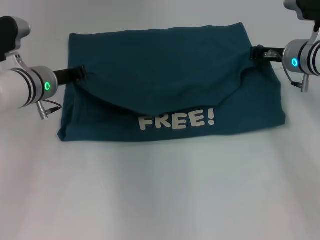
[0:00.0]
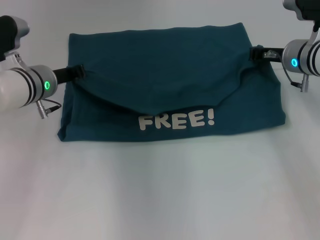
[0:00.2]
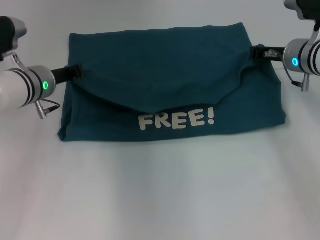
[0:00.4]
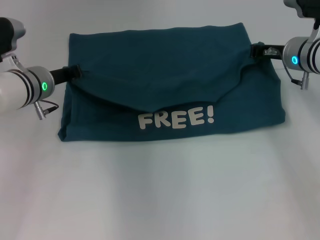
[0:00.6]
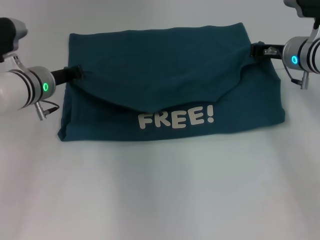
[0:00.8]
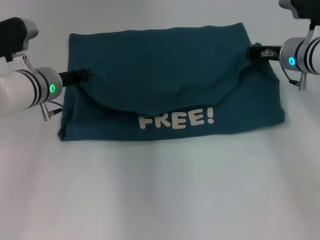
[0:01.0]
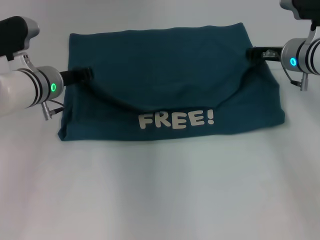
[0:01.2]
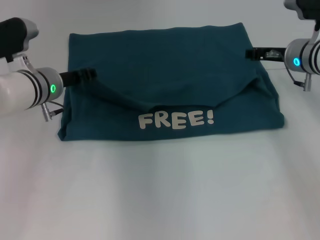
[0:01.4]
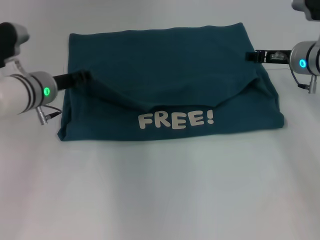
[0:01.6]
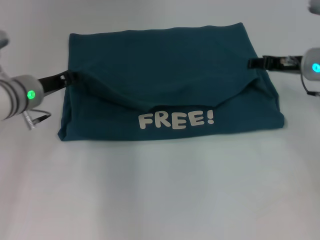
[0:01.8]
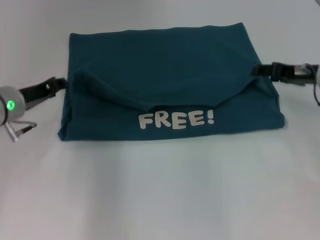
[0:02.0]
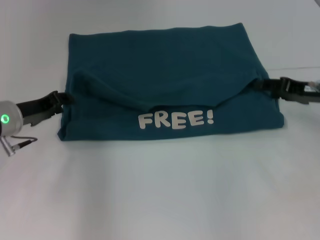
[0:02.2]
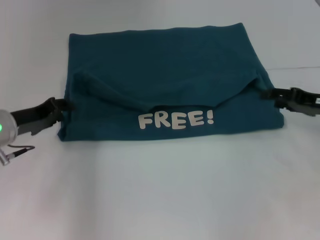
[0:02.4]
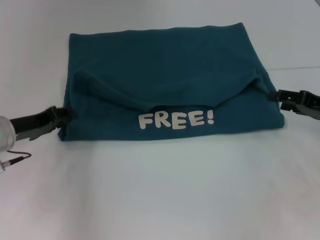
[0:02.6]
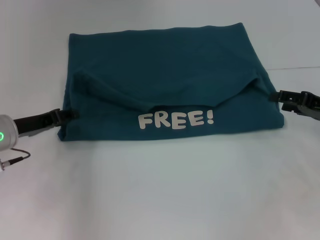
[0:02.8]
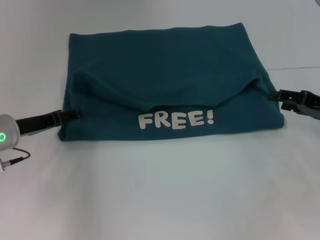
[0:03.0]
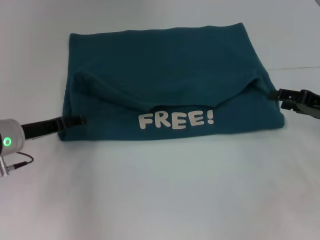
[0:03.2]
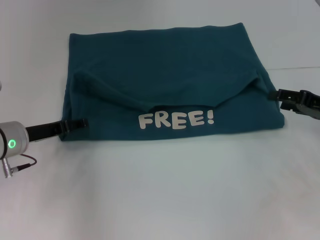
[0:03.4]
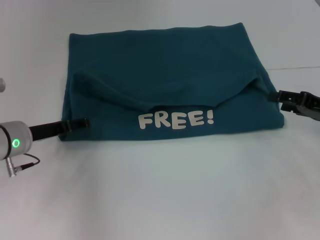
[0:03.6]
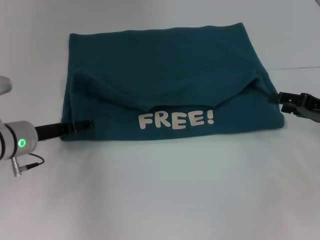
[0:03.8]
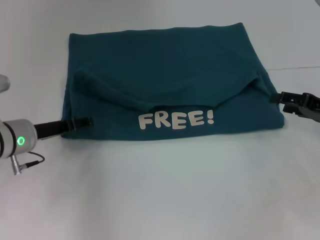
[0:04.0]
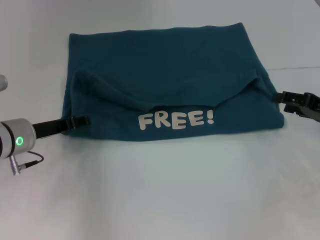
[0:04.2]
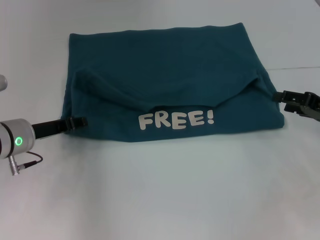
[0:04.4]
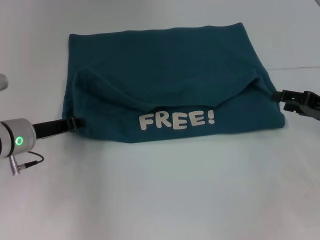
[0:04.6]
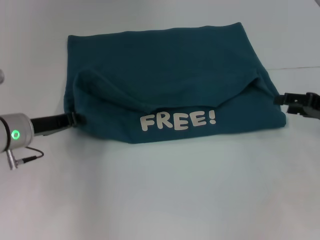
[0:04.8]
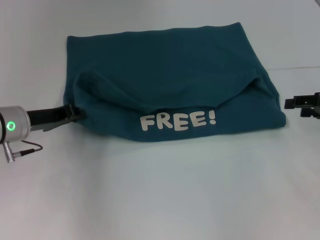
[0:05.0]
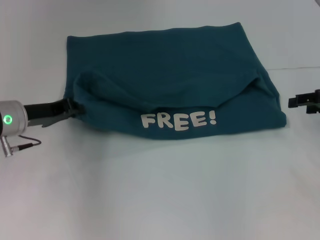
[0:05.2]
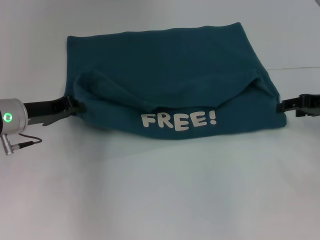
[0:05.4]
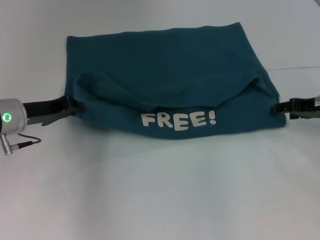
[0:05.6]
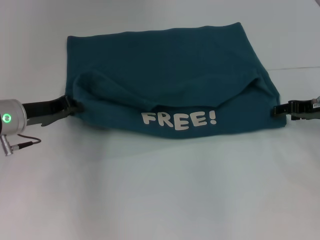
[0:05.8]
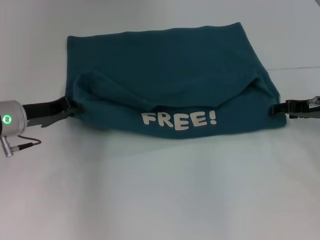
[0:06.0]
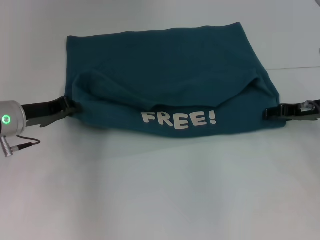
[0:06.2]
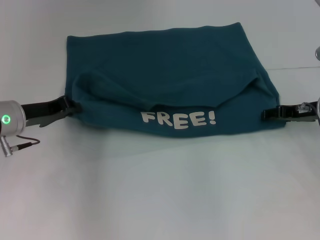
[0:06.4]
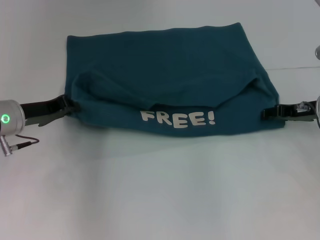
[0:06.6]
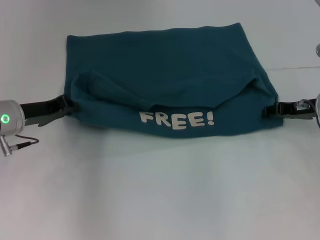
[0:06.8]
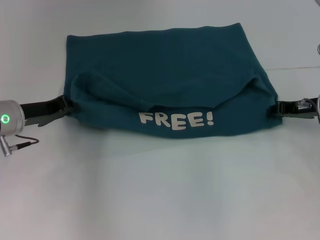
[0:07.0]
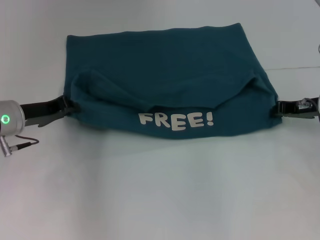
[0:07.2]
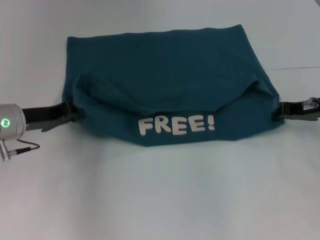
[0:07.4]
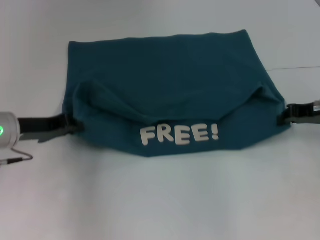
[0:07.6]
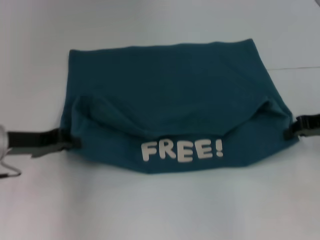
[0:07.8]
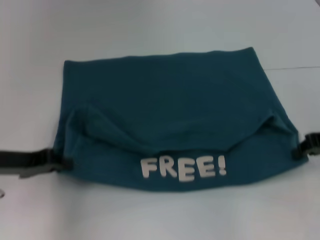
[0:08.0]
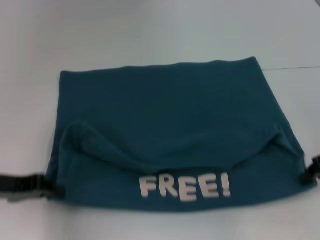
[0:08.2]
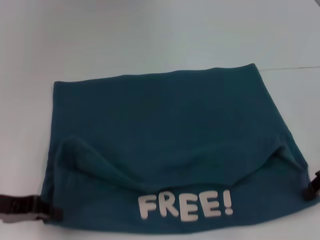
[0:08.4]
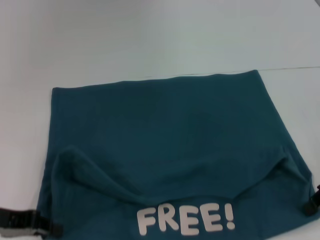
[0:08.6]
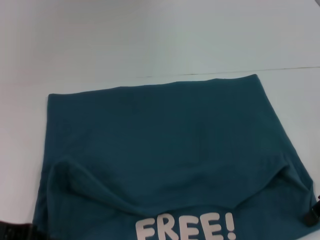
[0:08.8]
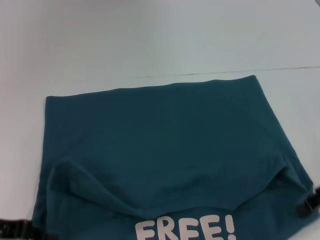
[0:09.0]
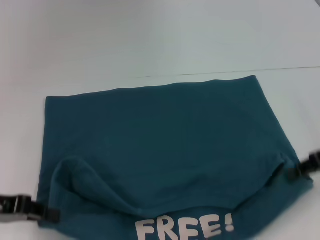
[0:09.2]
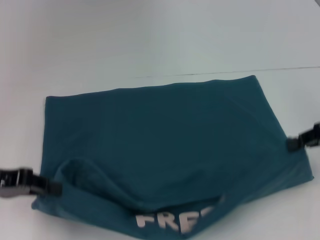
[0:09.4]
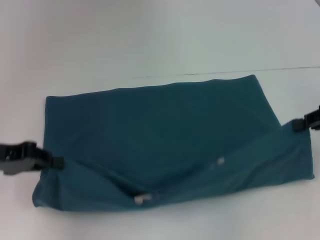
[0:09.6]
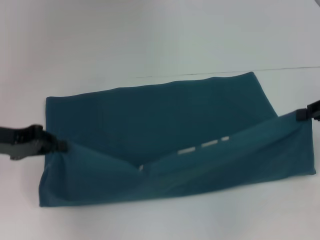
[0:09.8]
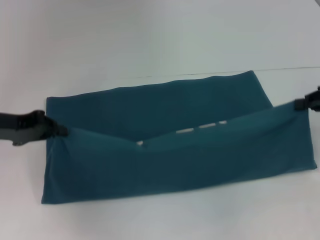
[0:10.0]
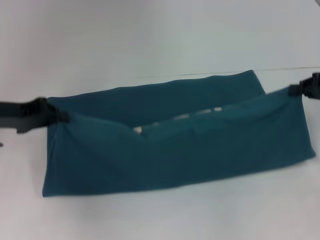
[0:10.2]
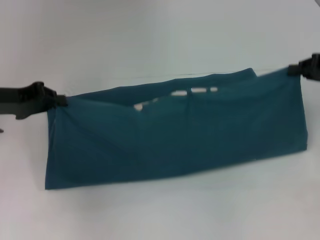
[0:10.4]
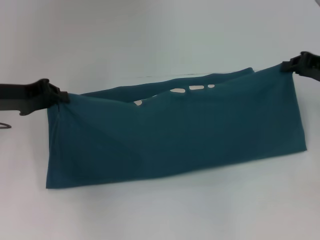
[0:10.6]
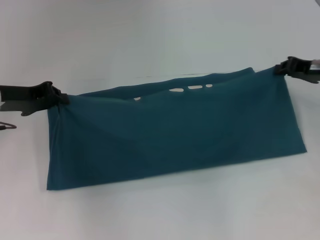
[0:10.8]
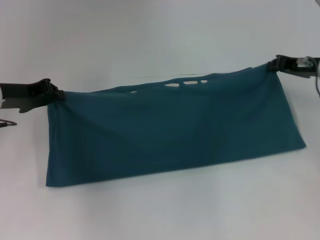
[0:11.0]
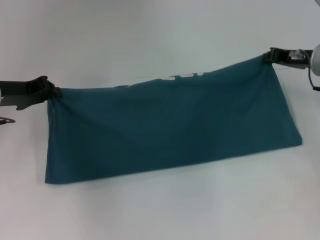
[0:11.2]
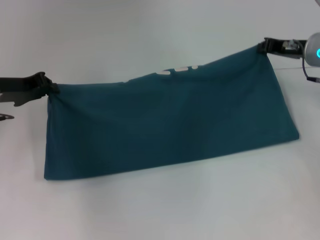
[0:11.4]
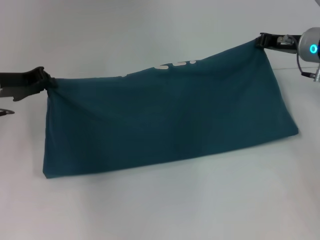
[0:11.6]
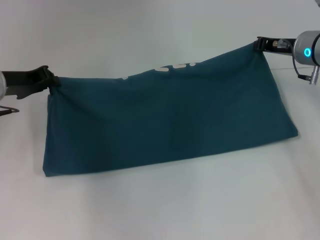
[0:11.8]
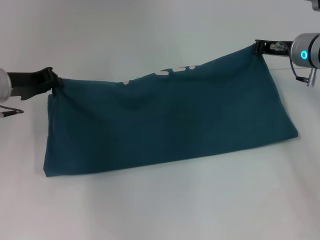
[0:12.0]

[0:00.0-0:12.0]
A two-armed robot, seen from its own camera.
Step, 0:01.8 to 0:08.8: Pull the clothes with your left hand.
Step, 0:01.8 to 0:08.8: Pull the clothes with your right hand.
0:00.0 to 0:01.6: The left gripper opens. Meanwhile the right gripper opens up.
0:01.6 to 0:03.0: The right gripper goes roughly 15 cm backward and to the right, while the left gripper shifts about 10 cm to the left and backward.
0:03.0 to 0:04.4: The grippers make only small movements.
0:04.4 to 0:06.0: The left gripper closes its fingers, while the right gripper moves forward, roughly 5 cm.
0:06.0 to 0:07.6: The right gripper closes its fingers.
0:07.6 to 0:09.0: The right gripper is displaced backward by some 10 cm; the left gripper travels backward and to the left by roughly 10 cm.
0:09.0 to 0:10.4: The left gripper is displaced forward and upward by approximately 15 cm. The right gripper shifts roughly 10 cm forward.
0:10.4 to 0:12.0: The right gripper heads to the left and forward, covering roughly 15 cm. The left gripper moves roughly 5 cm.

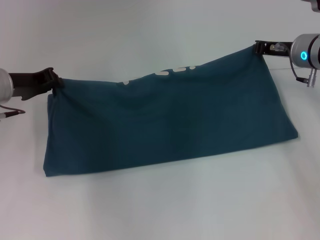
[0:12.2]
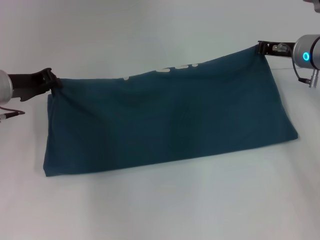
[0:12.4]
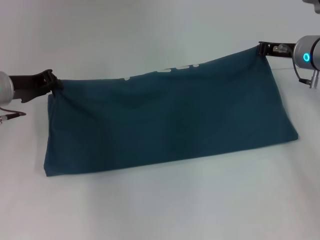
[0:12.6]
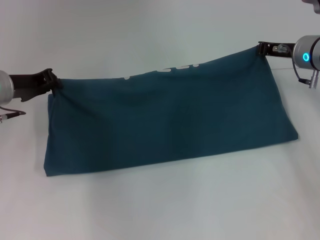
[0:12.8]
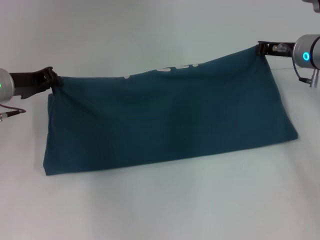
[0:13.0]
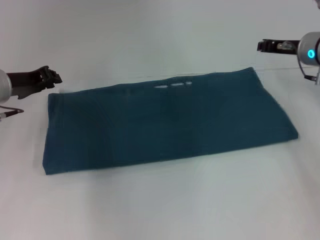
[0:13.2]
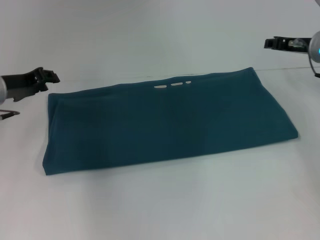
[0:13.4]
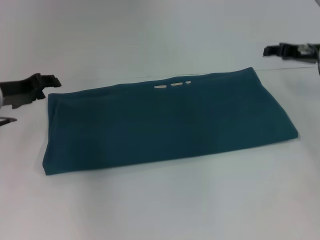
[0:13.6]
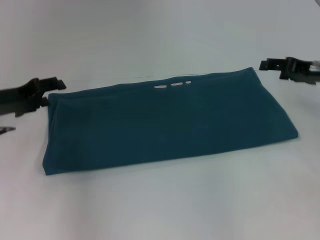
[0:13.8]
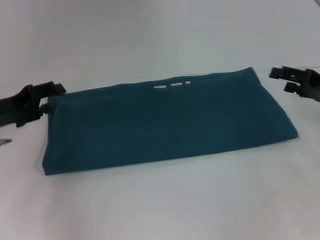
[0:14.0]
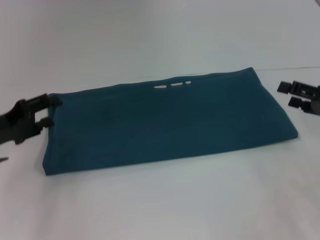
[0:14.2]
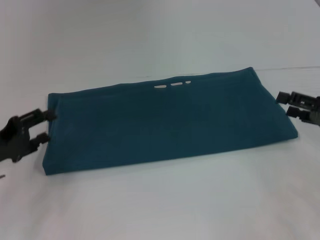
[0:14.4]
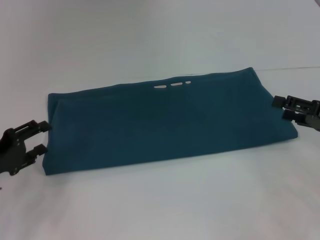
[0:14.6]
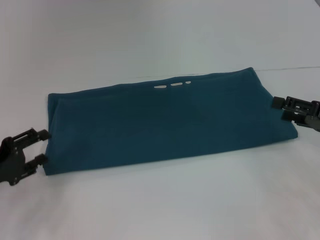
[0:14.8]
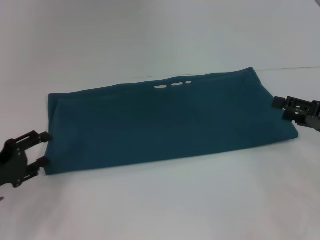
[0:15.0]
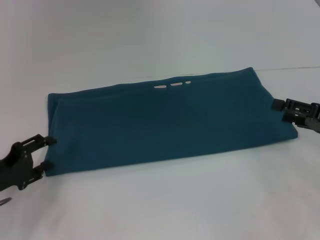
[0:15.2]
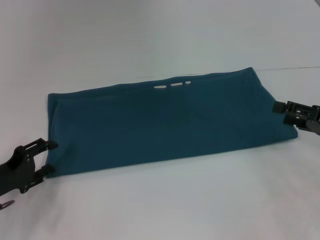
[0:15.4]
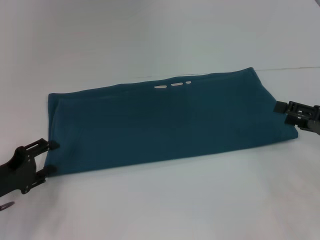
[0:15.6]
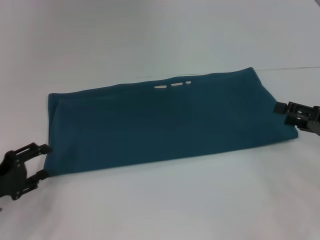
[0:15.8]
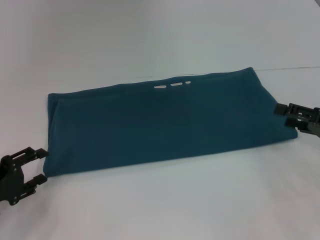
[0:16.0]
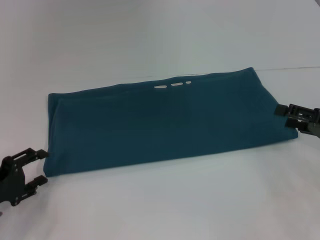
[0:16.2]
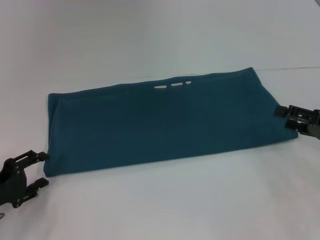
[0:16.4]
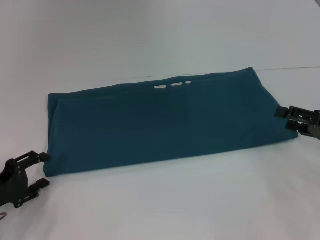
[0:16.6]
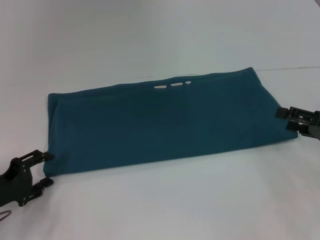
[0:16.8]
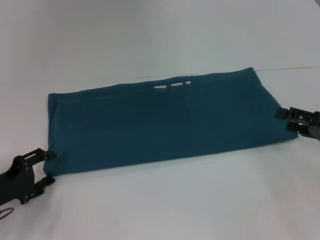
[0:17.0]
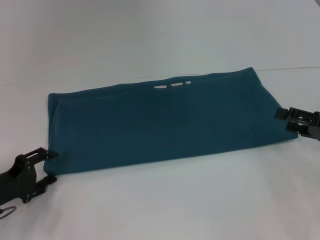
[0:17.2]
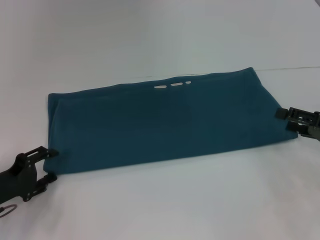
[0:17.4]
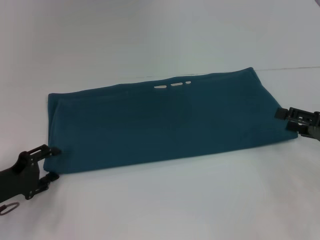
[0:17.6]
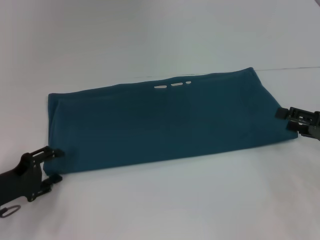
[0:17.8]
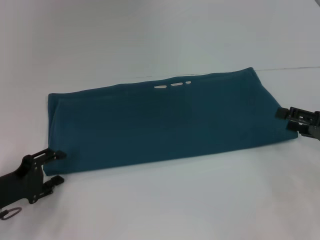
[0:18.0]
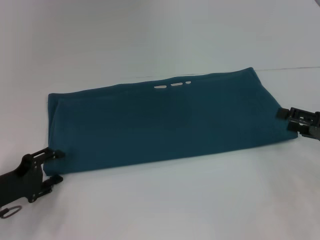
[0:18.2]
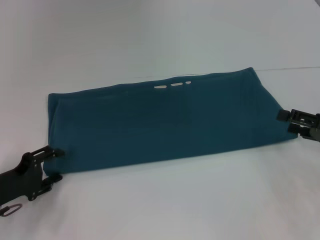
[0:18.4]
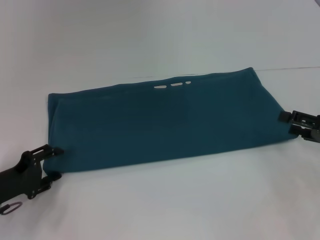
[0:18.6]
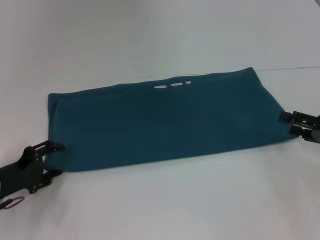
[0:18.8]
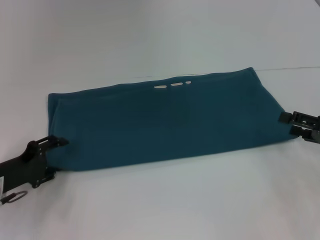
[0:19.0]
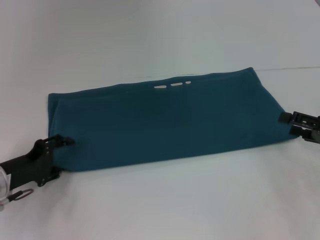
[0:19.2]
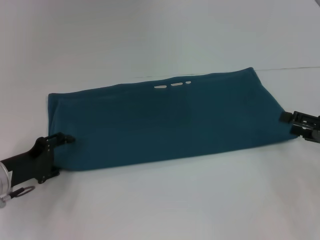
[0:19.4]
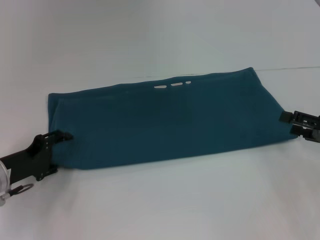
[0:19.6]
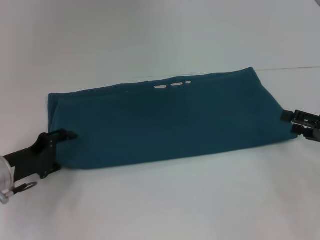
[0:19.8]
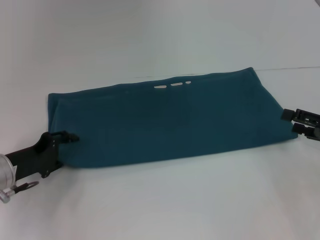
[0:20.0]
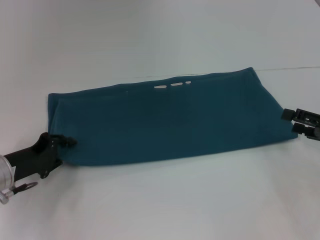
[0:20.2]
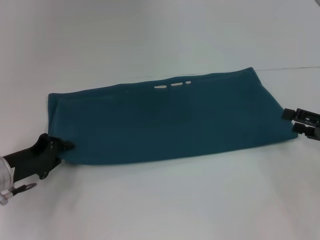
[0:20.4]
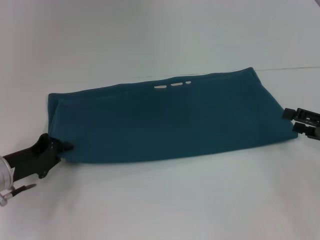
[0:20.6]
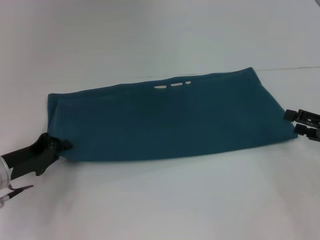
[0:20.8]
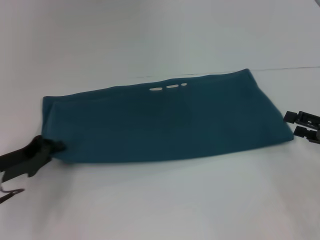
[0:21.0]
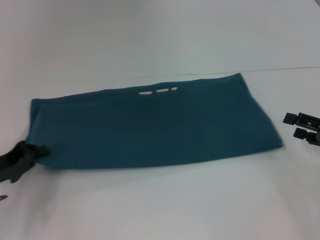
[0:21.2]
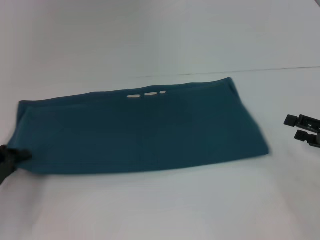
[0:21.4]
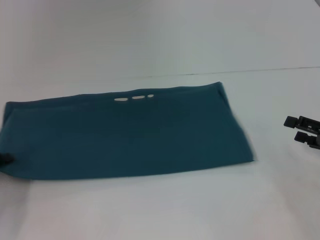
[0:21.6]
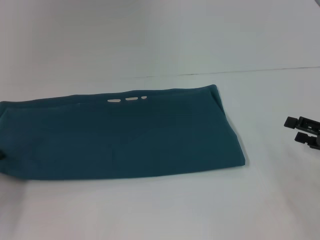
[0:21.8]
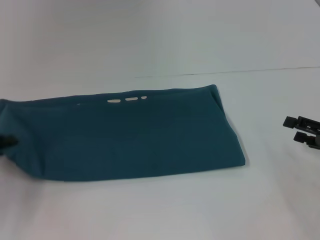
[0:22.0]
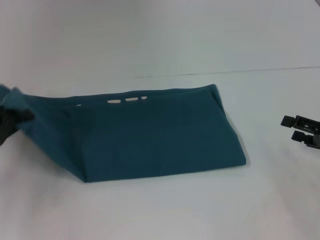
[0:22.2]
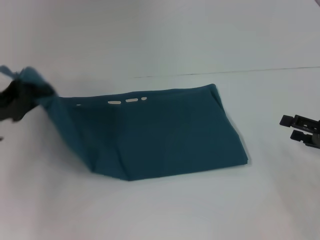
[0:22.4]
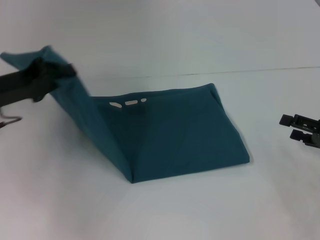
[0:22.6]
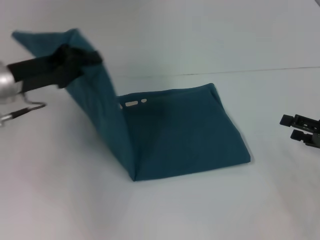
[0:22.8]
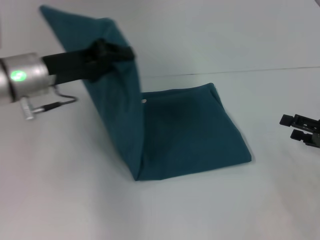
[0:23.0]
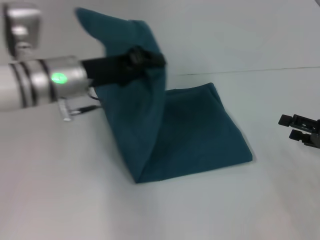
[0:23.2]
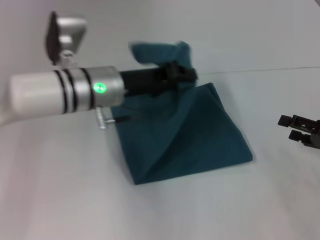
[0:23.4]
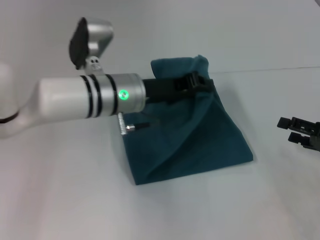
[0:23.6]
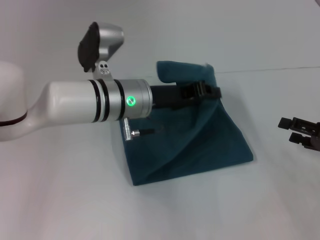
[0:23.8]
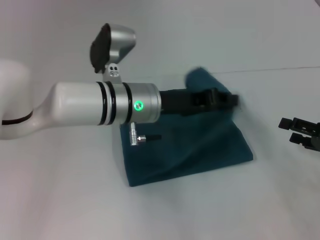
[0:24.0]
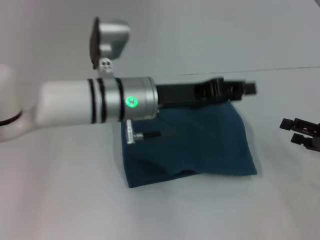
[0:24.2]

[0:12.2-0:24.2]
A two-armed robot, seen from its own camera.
Step, 0:12.2 to 0:24.2: Fold the clothes to the left.
0:12.2 to 0:13.8: The right gripper goes about 10 cm to the right and backward, and opens. The left gripper opens up.
0:13.8 to 0:15.2: The left gripper shifts roughly 15 cm backward and downward. The right gripper is displaced backward by roughly 10 cm.
0:15.2 to 0:19.8: The grippers stay close to where they were, moving slightly.
0:19.8 to 0:21.2: The left gripper closes its fingers.
0:21.2 to 0:22.6: The left gripper shifts about 10 cm upward and forward.
0:22.6 to 0:24.2: The left gripper travels to the right by about 20 cm.
